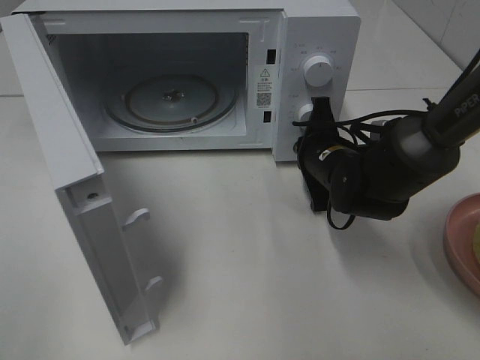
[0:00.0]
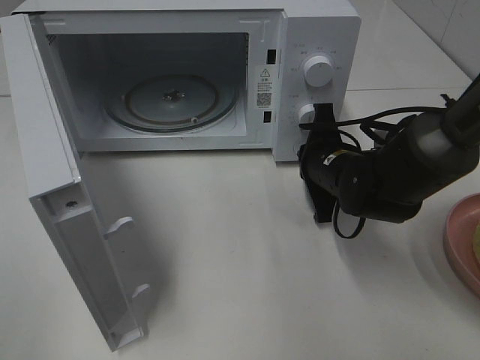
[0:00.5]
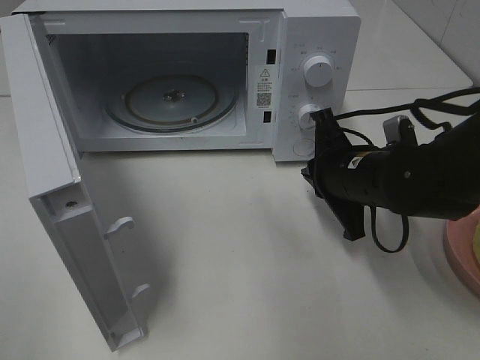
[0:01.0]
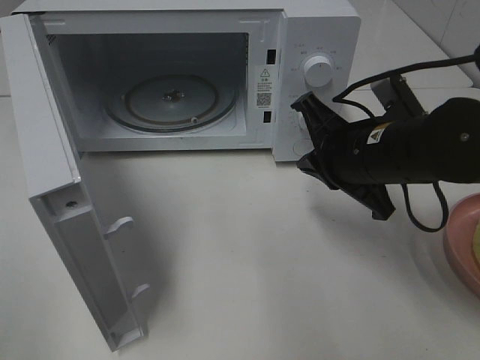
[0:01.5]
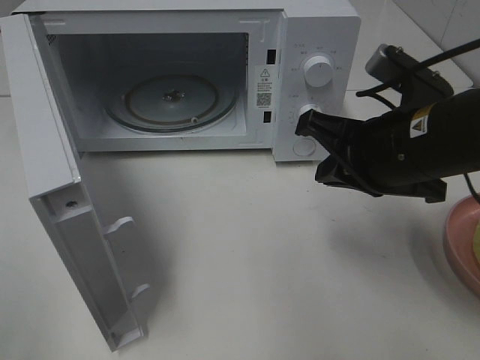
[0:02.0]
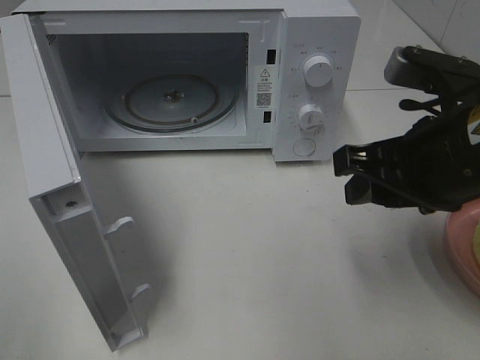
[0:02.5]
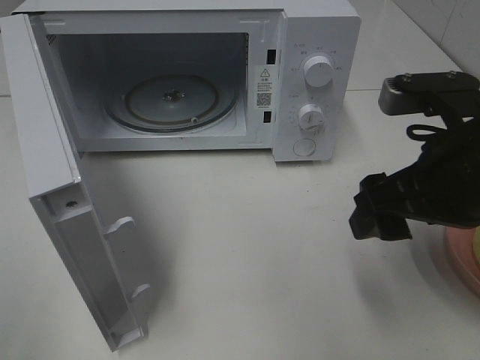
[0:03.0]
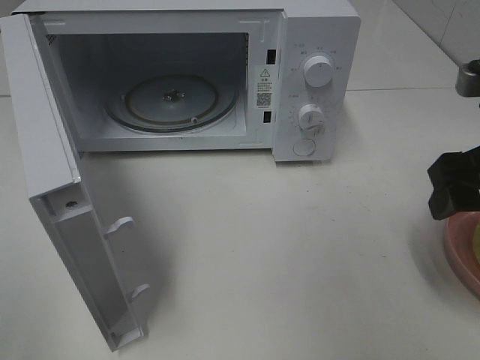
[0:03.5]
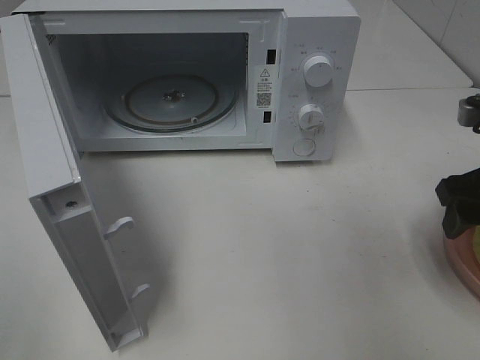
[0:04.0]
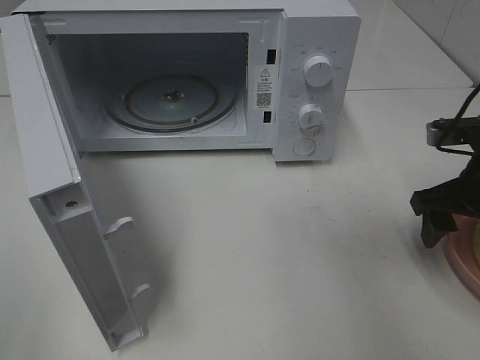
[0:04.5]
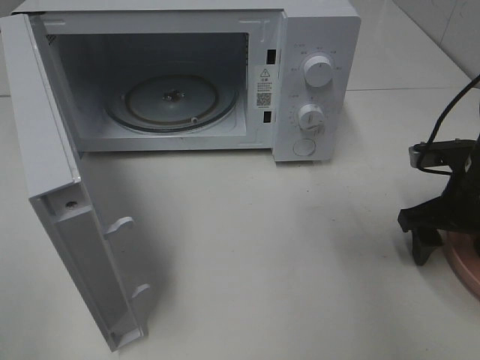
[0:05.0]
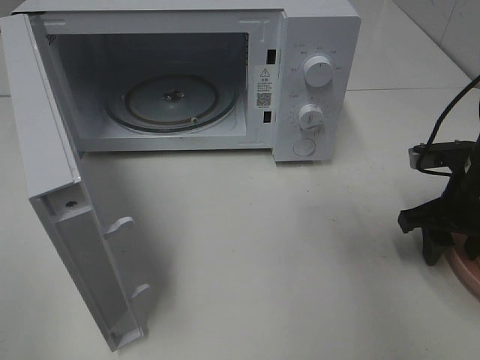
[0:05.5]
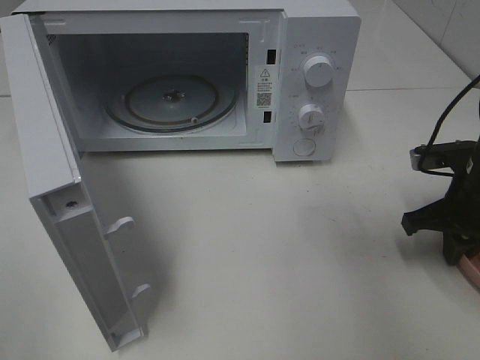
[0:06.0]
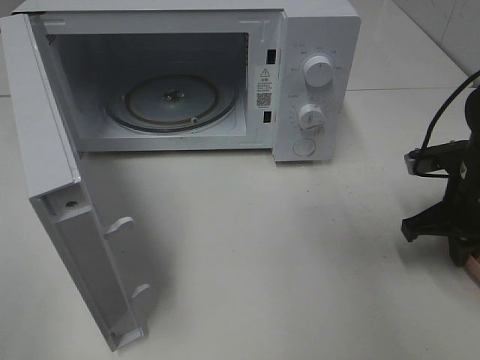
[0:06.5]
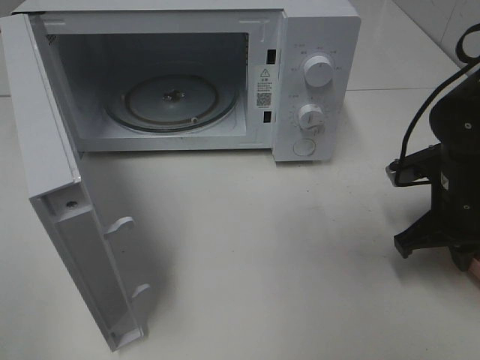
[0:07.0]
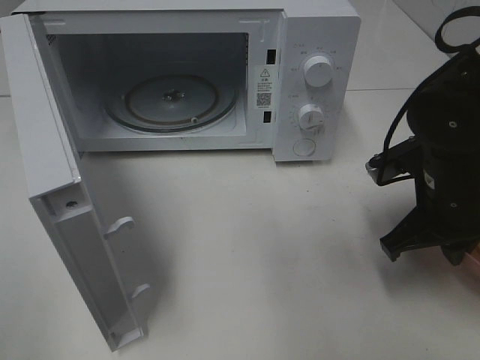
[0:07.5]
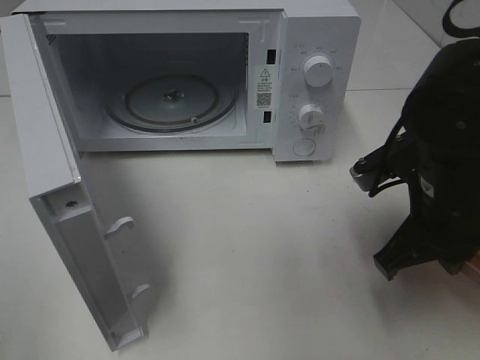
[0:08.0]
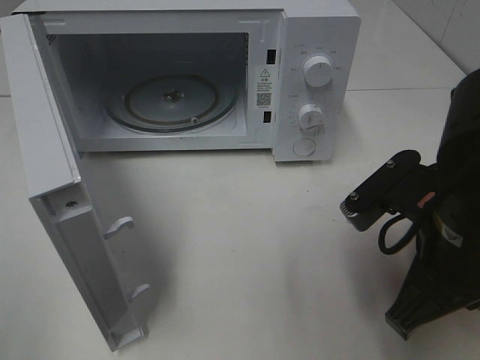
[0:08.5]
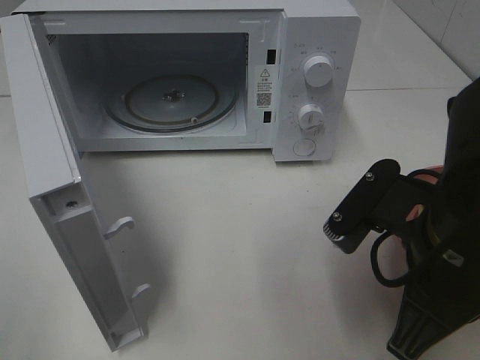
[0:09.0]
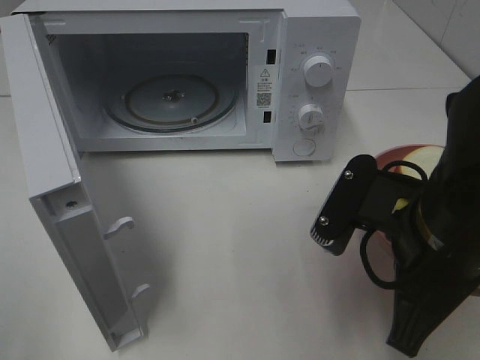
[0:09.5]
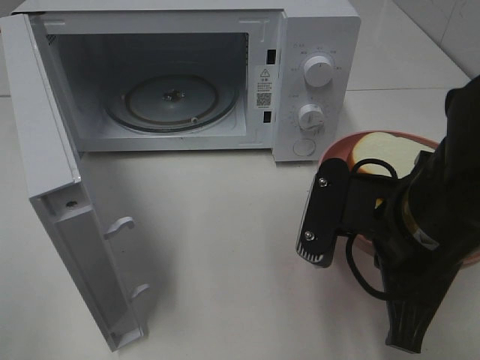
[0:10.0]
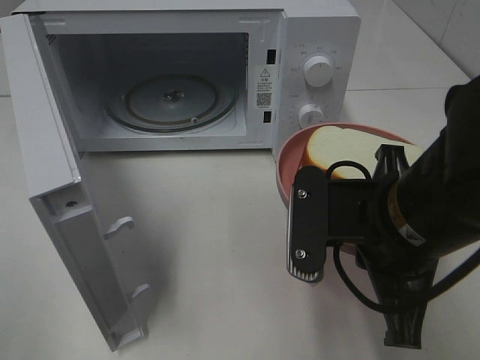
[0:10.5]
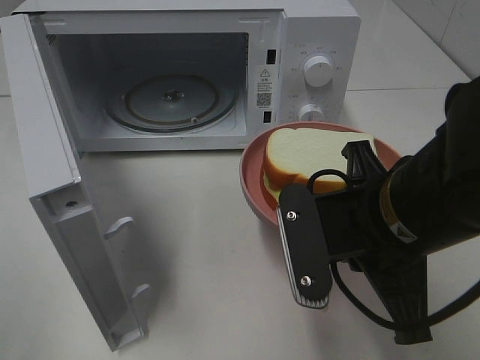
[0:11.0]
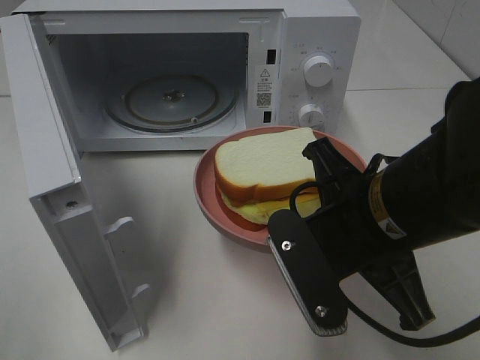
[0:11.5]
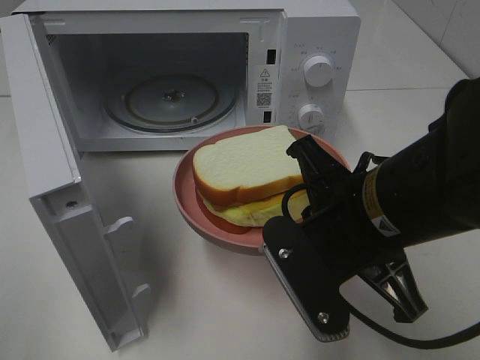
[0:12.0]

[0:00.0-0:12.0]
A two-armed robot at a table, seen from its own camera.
Task of the whole recording: Heat Sandwich.
Step, 0:01.0 to 0:06.0: Right hand: grab the plate with the sandwich.
0:00.0 to 0:02.0: The right gripper travels upward and backward by some 15 cm.
0:02.0 to 0:04.0: The right gripper goes approximately 15 cm to the right, and opens up.
0:04.0 to 0:06.0: The right gripper travels downward by some 10 cm, and closes up.
0:06.0 to 0:08.0: The right gripper is displaced to the left, backward and upward by roughly 15 cm.
0:08.0 to 0:10.0: The right gripper is displaced backward by roughly 5 cm.

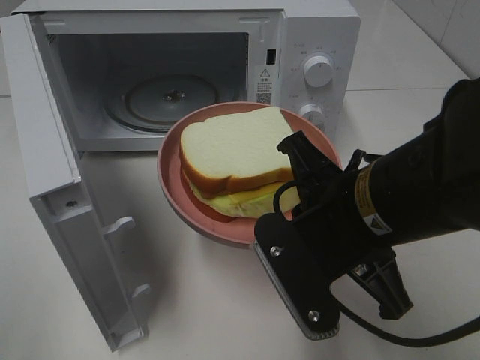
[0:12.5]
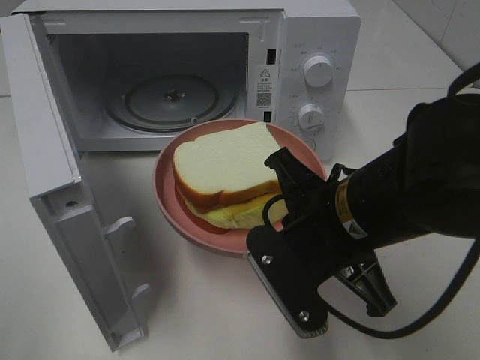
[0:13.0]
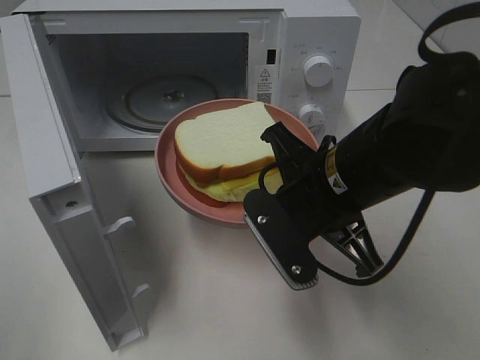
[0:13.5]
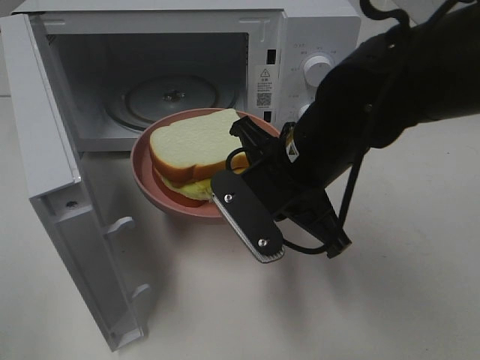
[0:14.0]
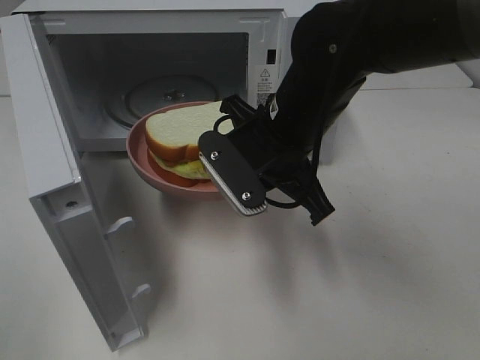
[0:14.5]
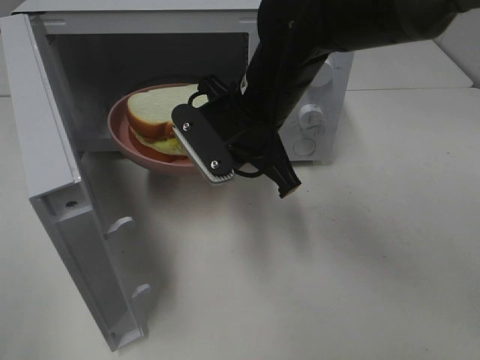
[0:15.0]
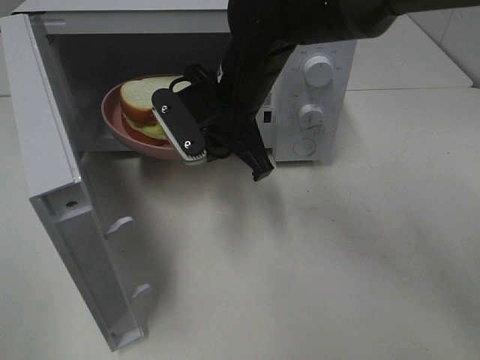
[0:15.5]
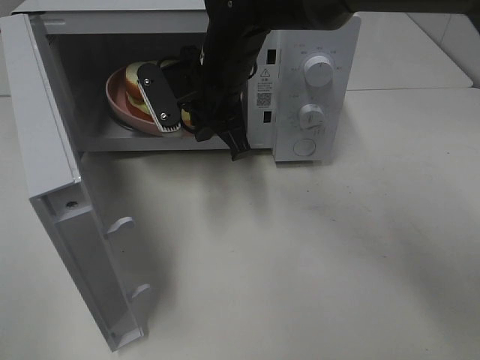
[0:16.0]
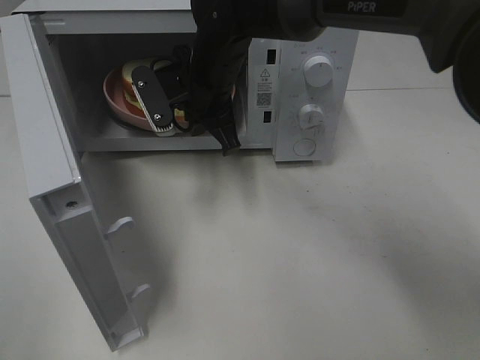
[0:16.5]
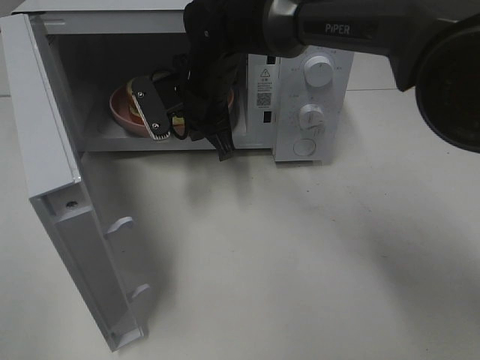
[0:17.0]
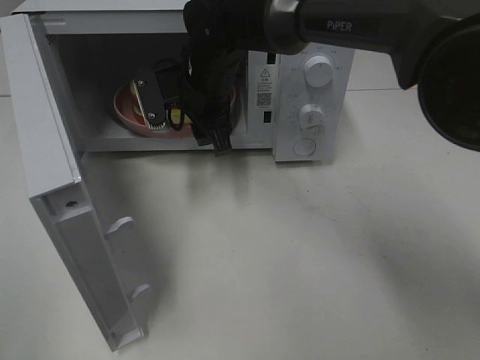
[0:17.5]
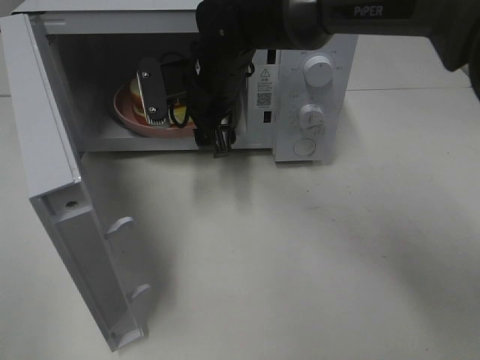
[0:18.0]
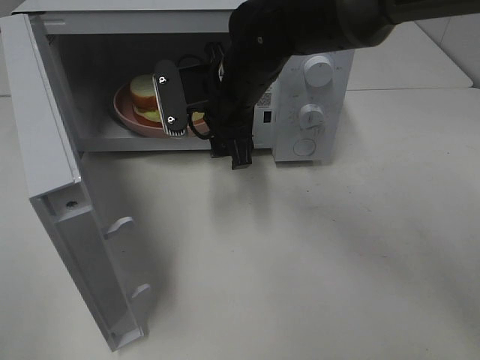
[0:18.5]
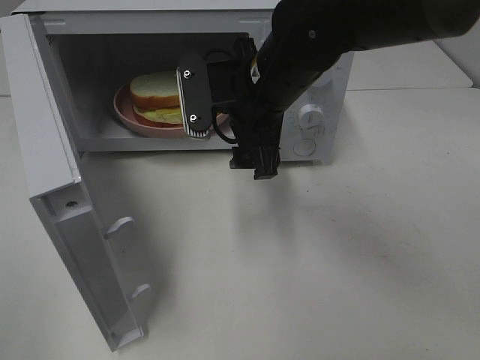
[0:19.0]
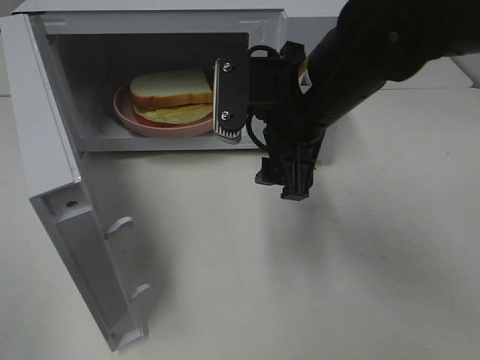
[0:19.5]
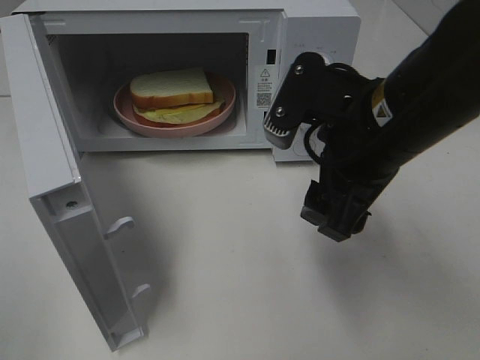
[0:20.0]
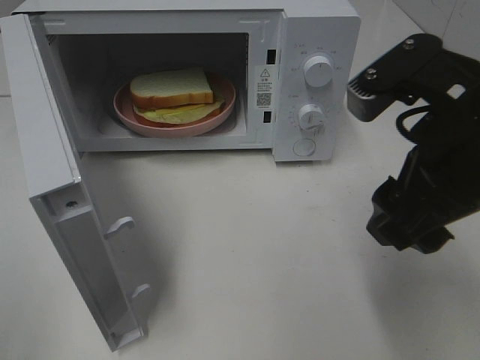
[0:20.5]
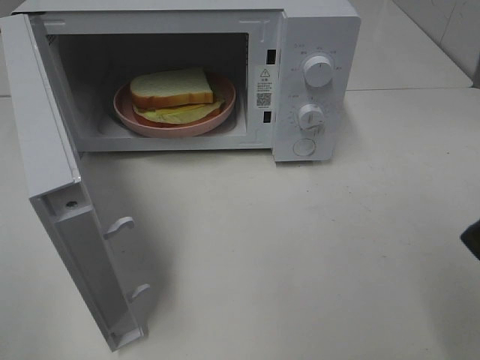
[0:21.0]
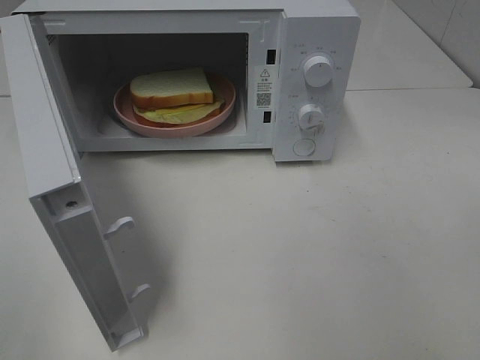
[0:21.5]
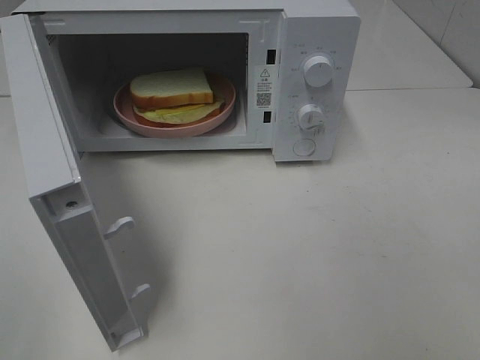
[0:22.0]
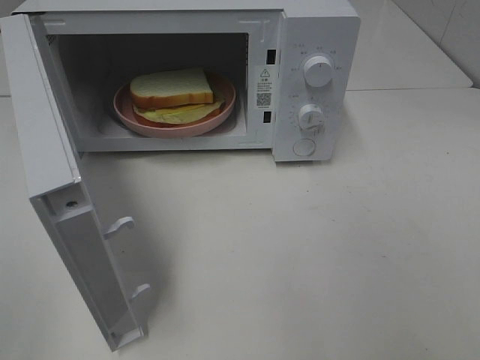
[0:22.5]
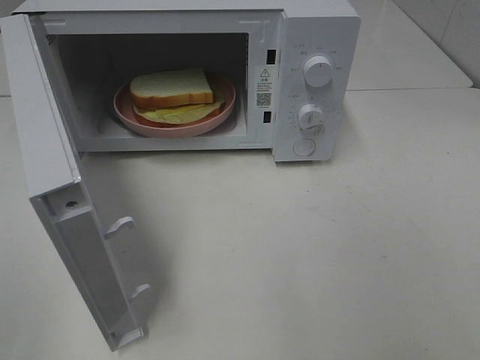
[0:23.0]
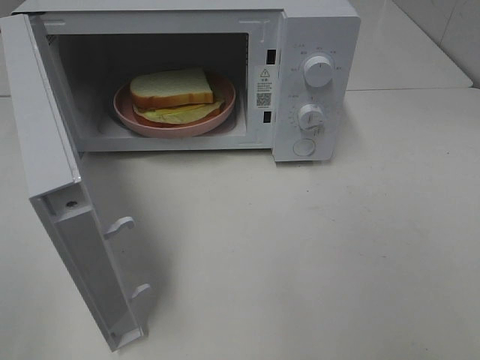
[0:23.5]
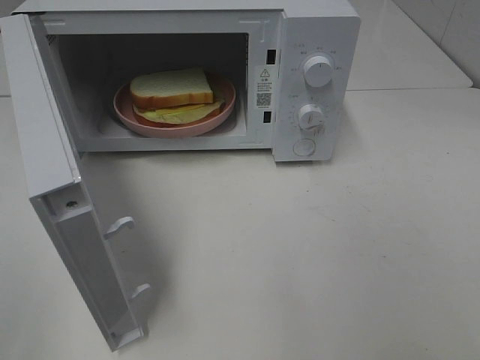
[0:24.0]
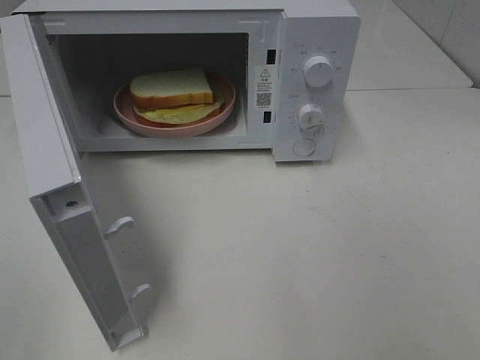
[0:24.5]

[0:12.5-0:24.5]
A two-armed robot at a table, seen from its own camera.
Task of the whole recording: Heat Sandwich.
Step, 0:12.5 to 0:18.0: Right hand: place the plate in the microwave.
0:12.5 to 0:14.5: The right gripper goes approximately 10 cm forward.
0:14.5 to 0:16.5: The right gripper moves forward and to the left, roughly 15 cm.
0:16.5 to 0:18.5: The right gripper ends up some 5 cm from where it was, and opens up.
0:18.5 to 0:20.5: The right gripper moves backward, to the right and upward, roughly 25 cm.
0:20.5 to 0:22.5: The right gripper heads backward and to the right, covering some 20 cm.

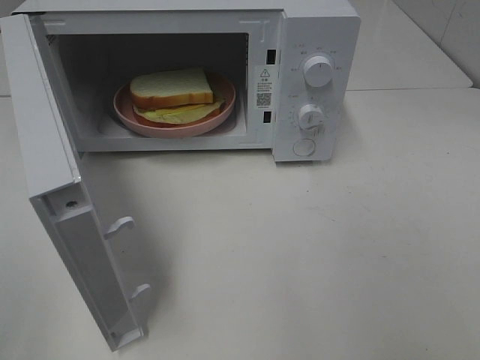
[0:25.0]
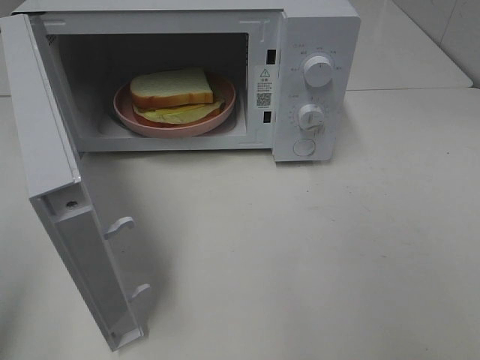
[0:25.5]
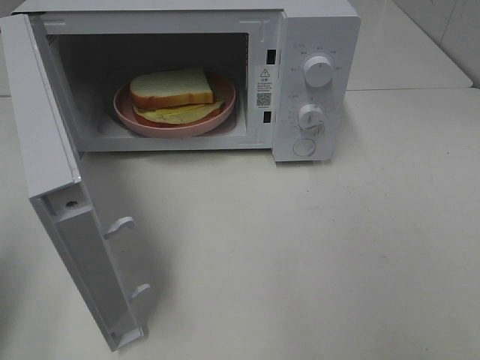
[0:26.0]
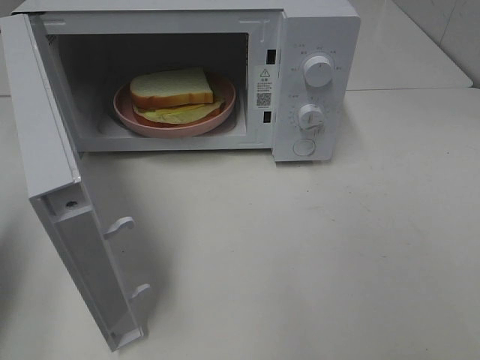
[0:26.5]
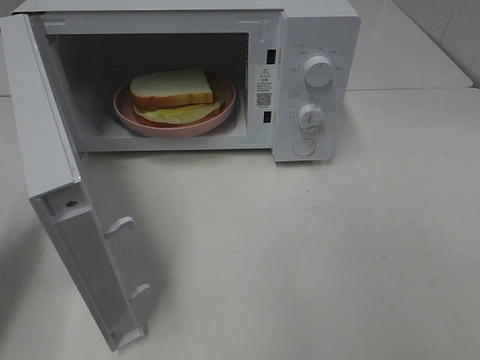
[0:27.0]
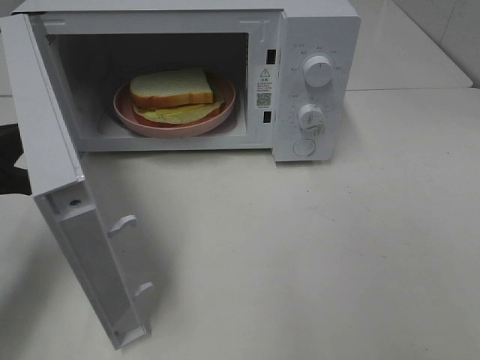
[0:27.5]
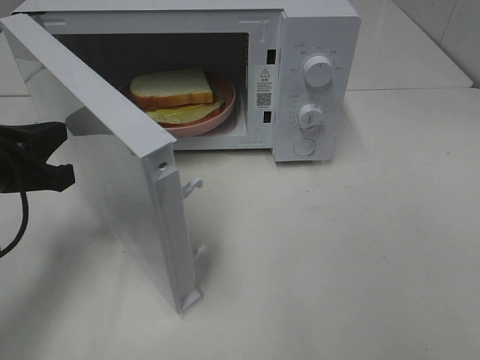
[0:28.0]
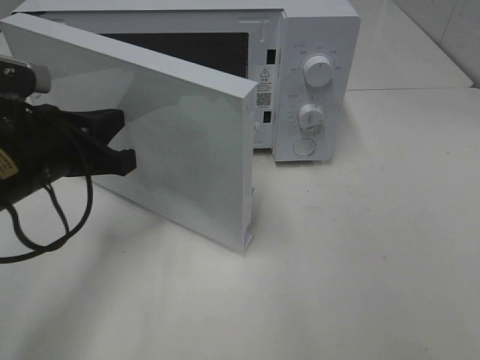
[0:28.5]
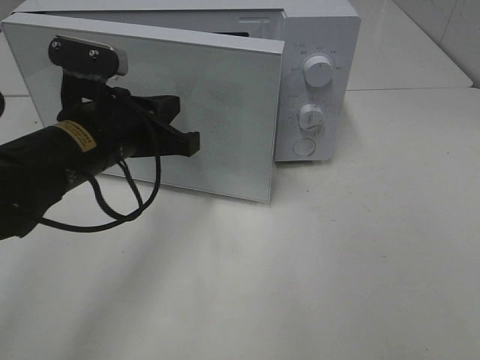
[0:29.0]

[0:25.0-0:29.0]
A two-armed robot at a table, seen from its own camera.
Task of the whole recording: Heat Sandwich.
0:25.0 to 0:27.0: The left gripper is displaced forward and downward by approximately 25 cm, and closes.
0:27.0 to 0:29.0: The left gripper is displaced to the right by some 20 cm.
